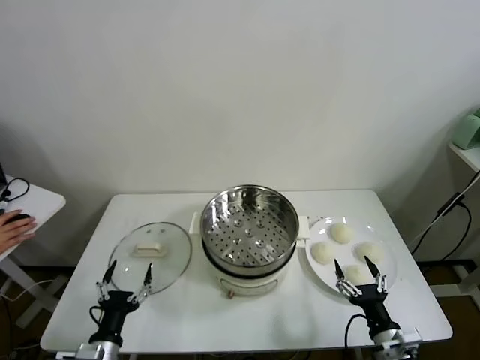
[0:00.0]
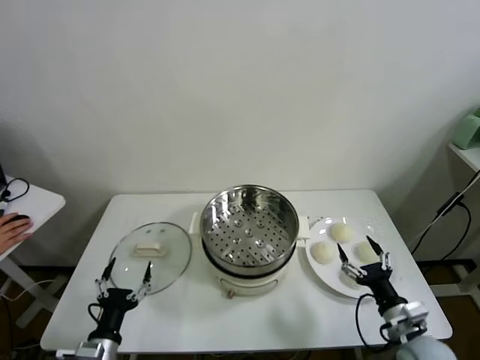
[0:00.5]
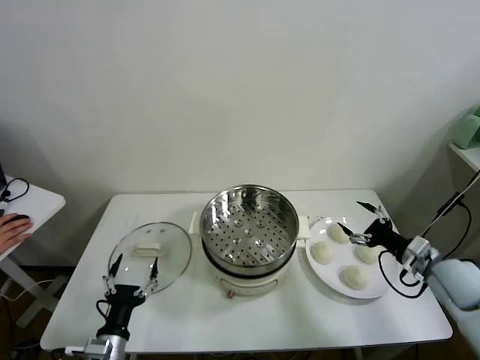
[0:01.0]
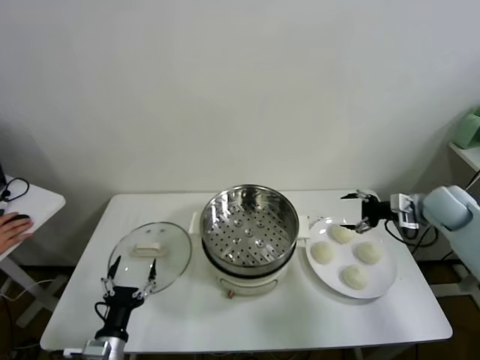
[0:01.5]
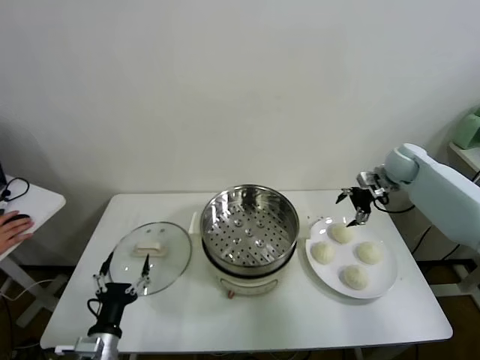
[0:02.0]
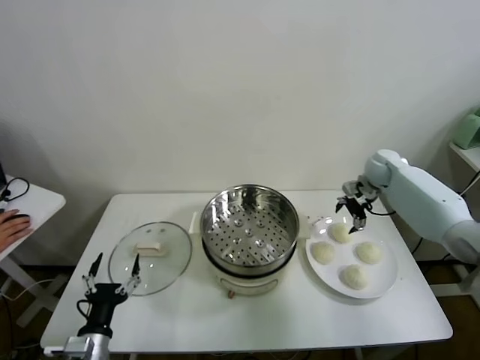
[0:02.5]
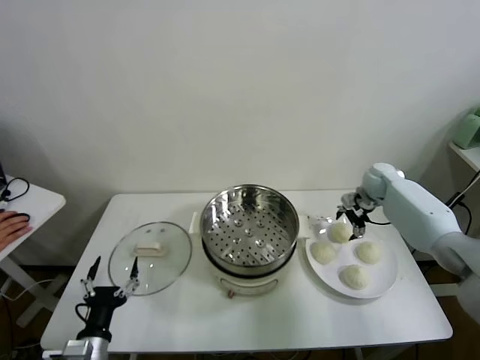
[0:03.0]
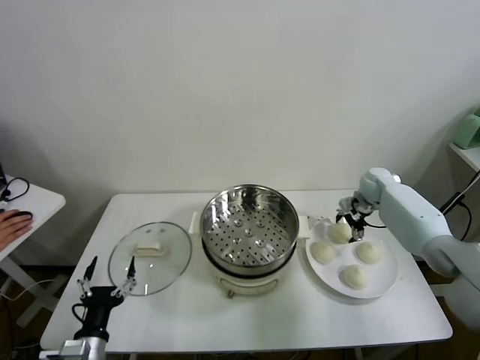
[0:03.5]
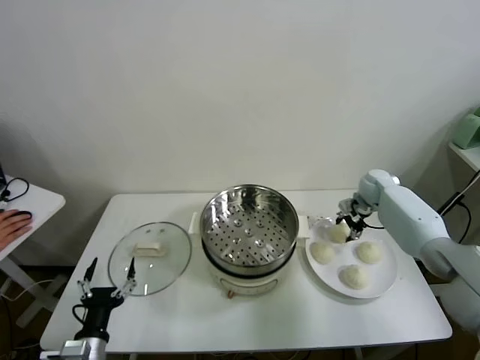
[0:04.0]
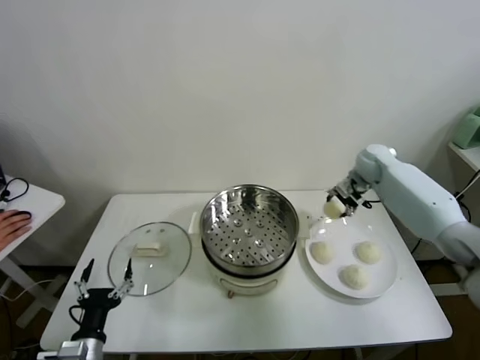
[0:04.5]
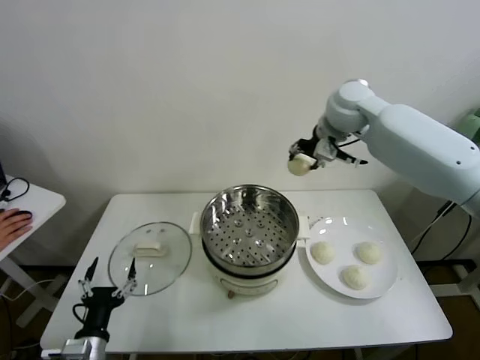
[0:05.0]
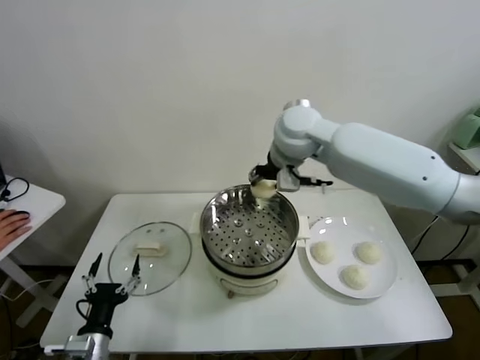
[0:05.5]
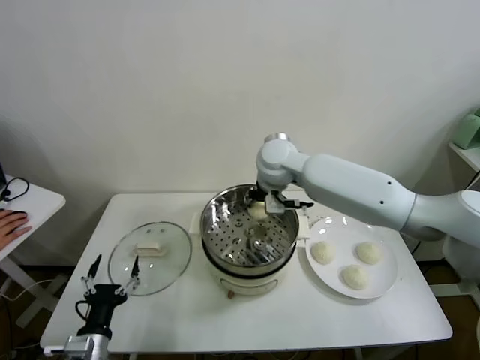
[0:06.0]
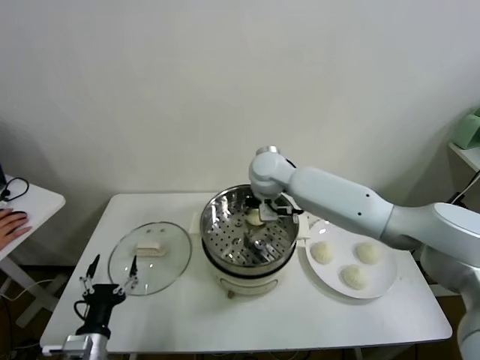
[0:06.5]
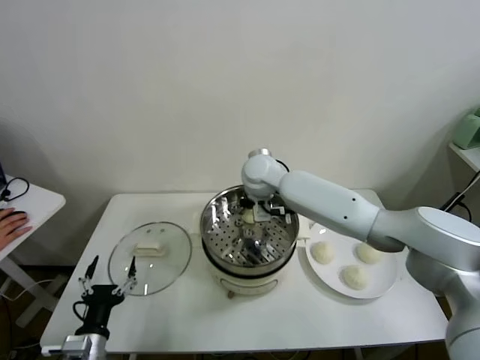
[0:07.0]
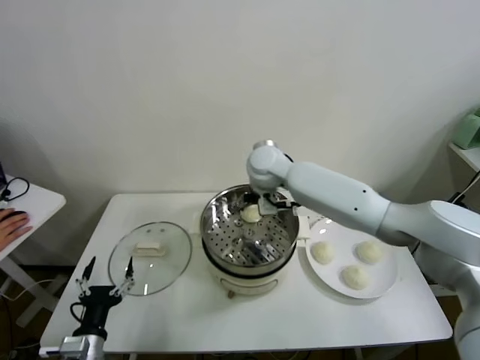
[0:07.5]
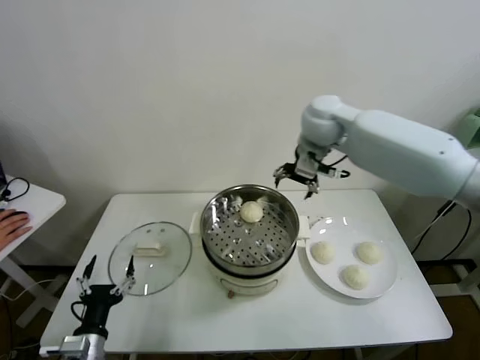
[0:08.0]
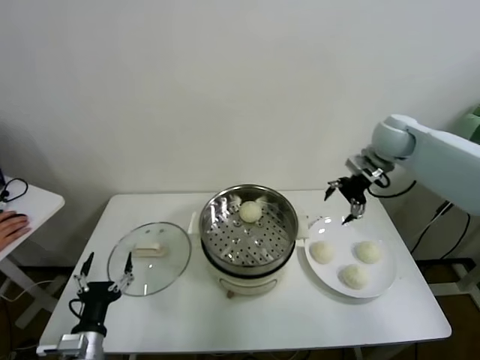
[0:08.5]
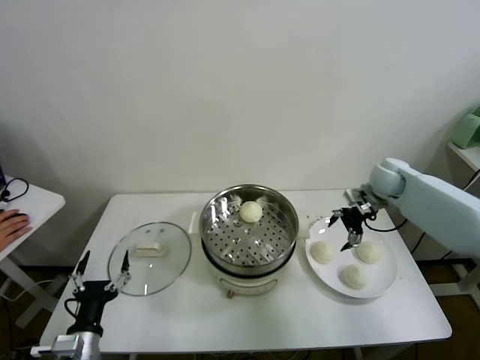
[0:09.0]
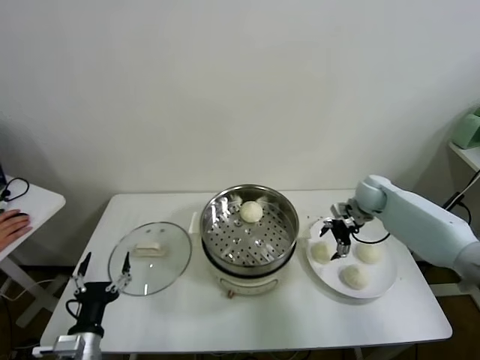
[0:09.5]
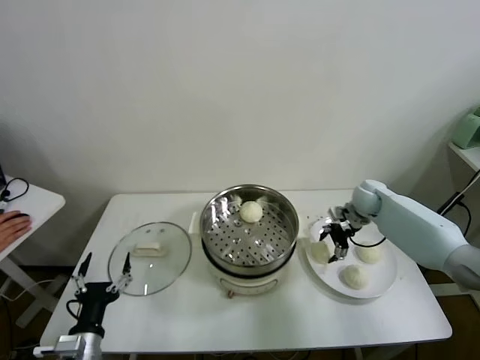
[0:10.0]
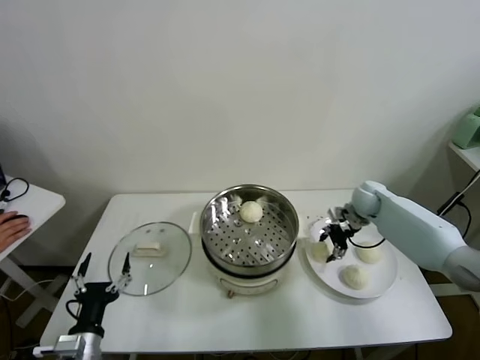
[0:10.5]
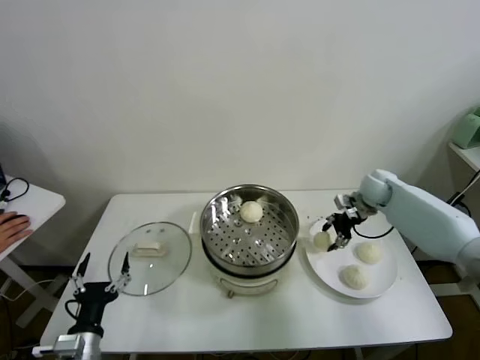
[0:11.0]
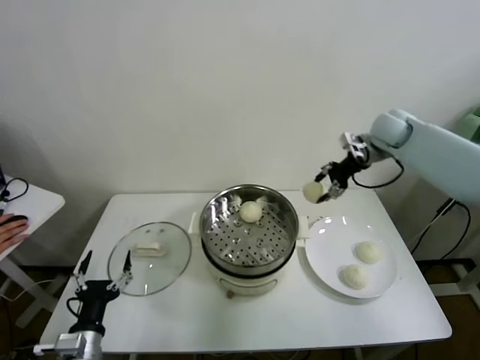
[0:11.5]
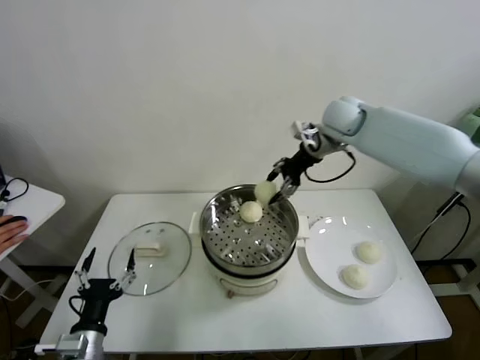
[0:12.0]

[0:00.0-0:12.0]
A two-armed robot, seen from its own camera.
Task of the whole recording: take steamed baozi put them in steamer.
Step, 0:00.0 to 0:03.5: Grasp the baozi in the plate with right gripper.
Step, 0:04.0 to 0:07.0: Place the baozi on the steamer with right gripper.
Step, 0:07.5 to 0:10.0: Grasp the baozi in the plate with right gripper.
0:02.0 to 0:04.0: The right gripper travels downward by approximately 10 cm, and closes.
0:04.0 to 0:06.0: The right gripper travels to the left and upward by approximately 35 cm.
0:06.0 to 0:08.0: The right gripper shifts roughly 15 cm to the right and upward, and opens.
0:08.0 to 0:10.0: The right gripper moves downward and to the right, some 30 cm, and closes.
0:10.0 to 0:12.0: The right gripper shifts approximately 25 cm upward and to the left, and closes up.

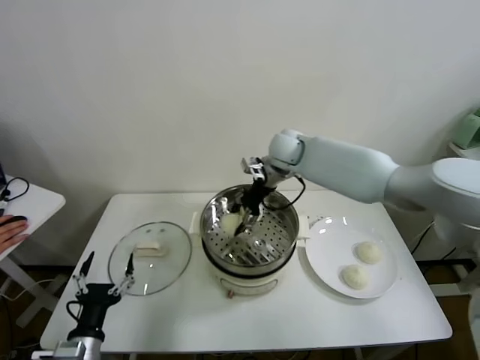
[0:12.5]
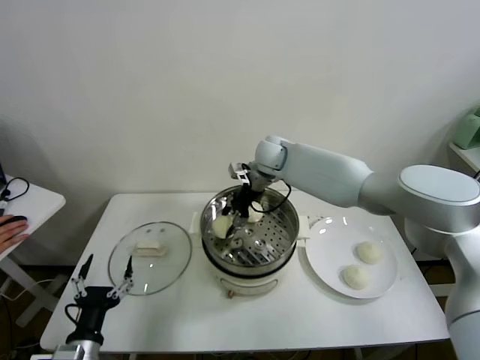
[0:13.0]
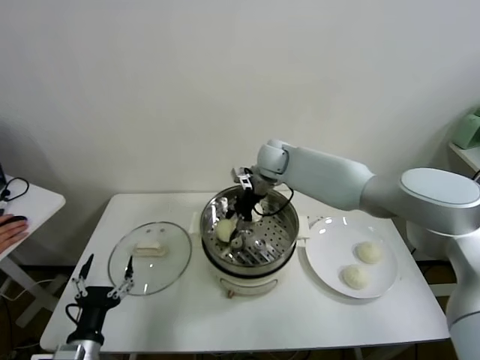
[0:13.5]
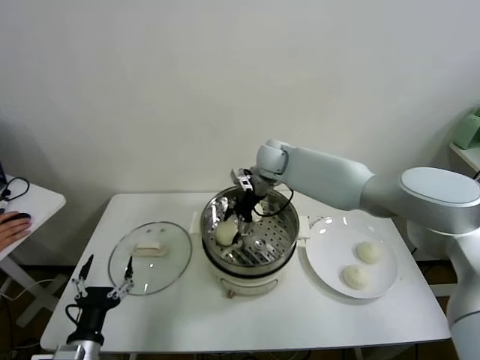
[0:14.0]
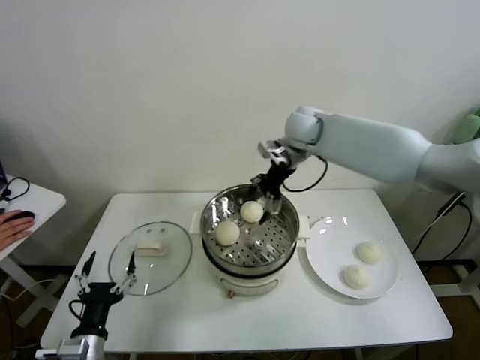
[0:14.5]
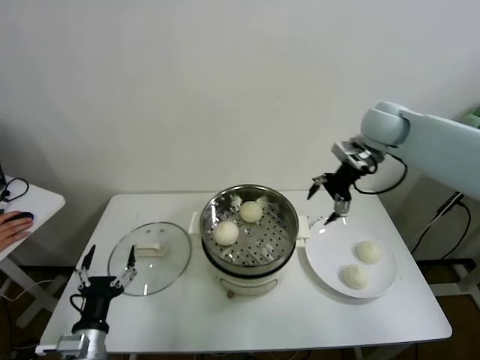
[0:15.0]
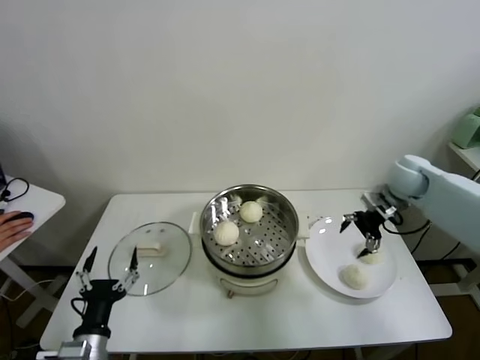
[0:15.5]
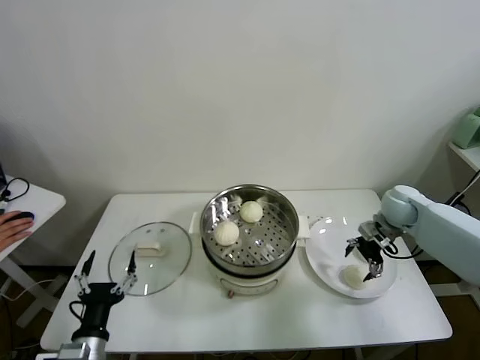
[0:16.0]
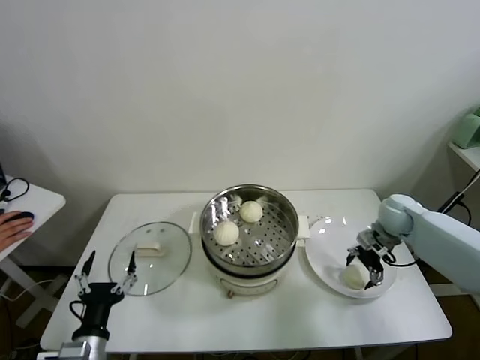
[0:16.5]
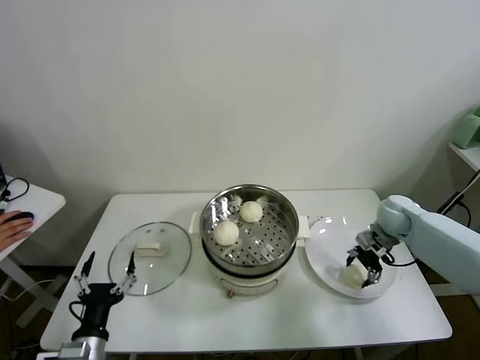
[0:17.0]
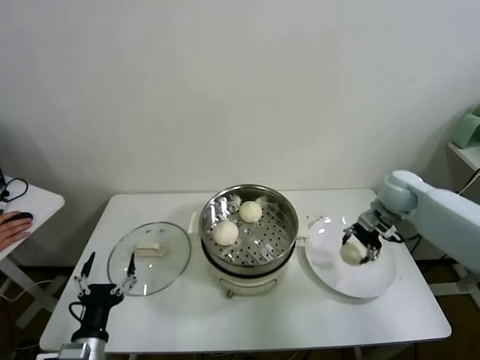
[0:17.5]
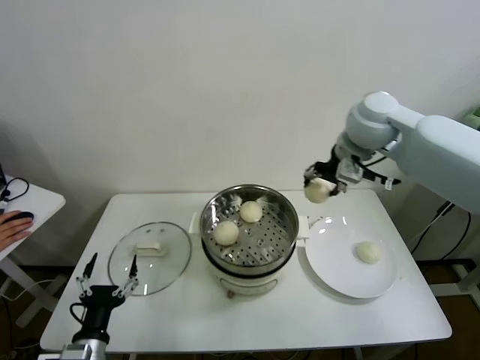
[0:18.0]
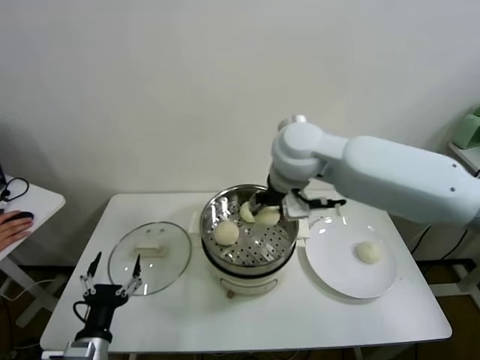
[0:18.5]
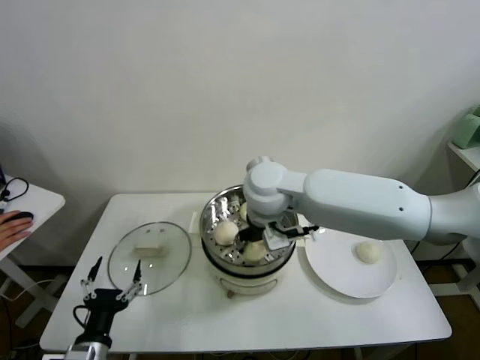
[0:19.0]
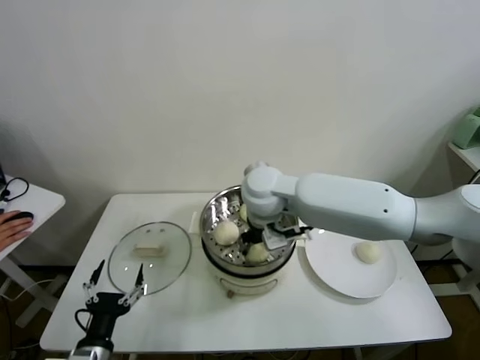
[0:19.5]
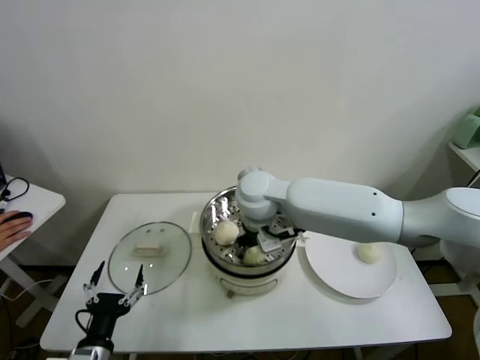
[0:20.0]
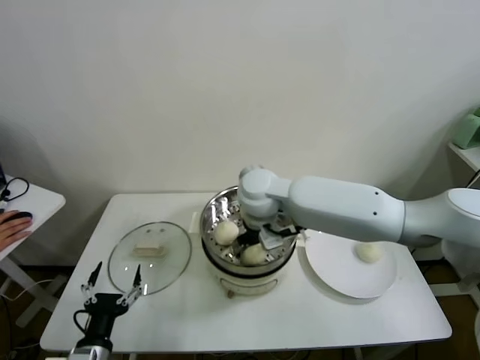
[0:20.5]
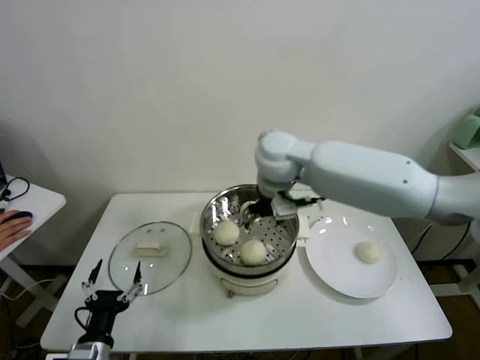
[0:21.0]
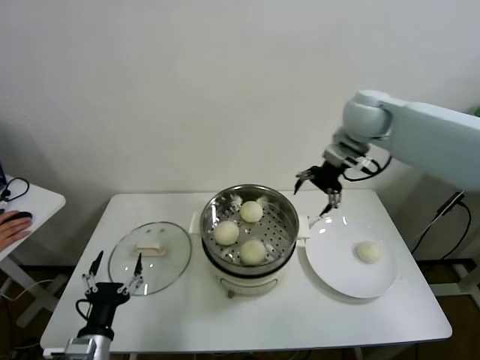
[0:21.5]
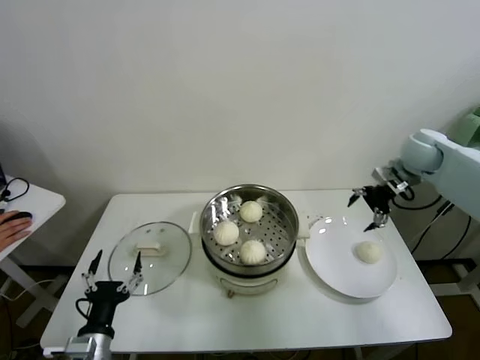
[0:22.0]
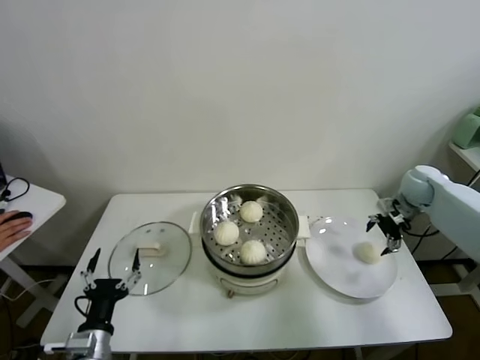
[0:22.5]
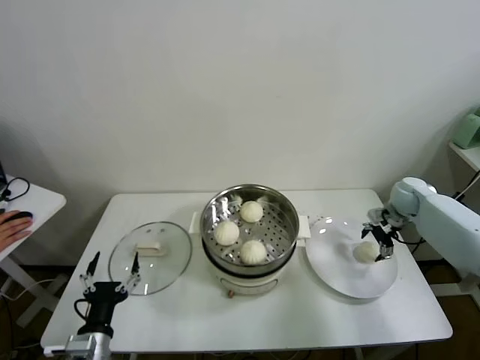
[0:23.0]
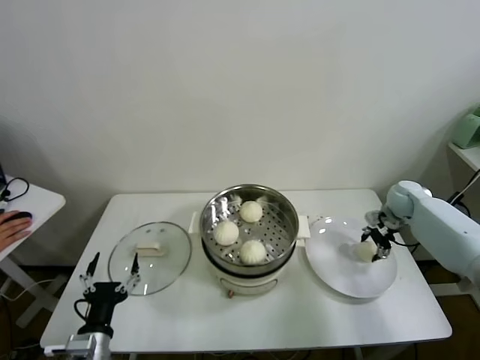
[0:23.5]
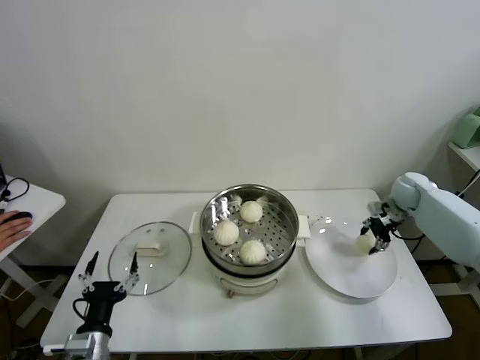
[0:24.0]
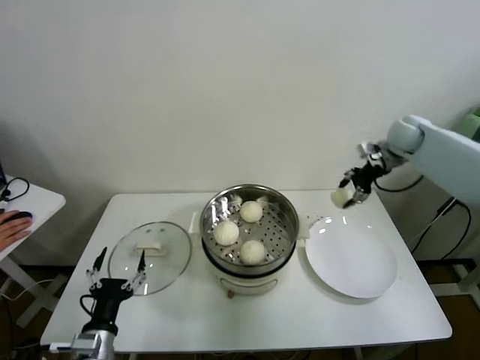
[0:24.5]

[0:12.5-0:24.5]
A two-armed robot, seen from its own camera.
Task of the whole recording: take steamed baozi put them in steamer.
Step, 0:14.0 to 0:16.5: Grasp the baozi in the plate with right gripper.
Step, 0:17.0 to 0:20.0: Place the baozi on the steamer with right gripper.
Step, 0:20.5 to 0:23.0: Grasp the baozi in the plate with right gripper.
0:12.5 to 0:14.5: The right gripper goes some 10 cm upward and to the right, and opens up.
0:14.5 to 0:16.5: The right gripper is displaced to the right and downward by some 30 cm.
0:16.5 to 0:18.5: The right gripper travels to the left and upward by approximately 40 cm, and closes its fingers.
0:18.5 to 0:20.5: The right gripper moves downward and to the left, roughly 10 cm, and opens.
0:20.5 to 0:22.5: The right gripper travels to the right by roughly 40 cm.
0:22.5 to 0:24.5: The right gripper moves upward and forward, about 10 cm, and closes its fingers.

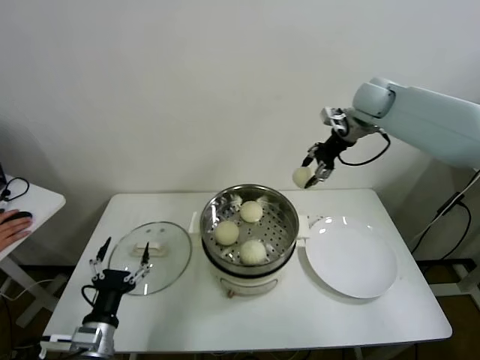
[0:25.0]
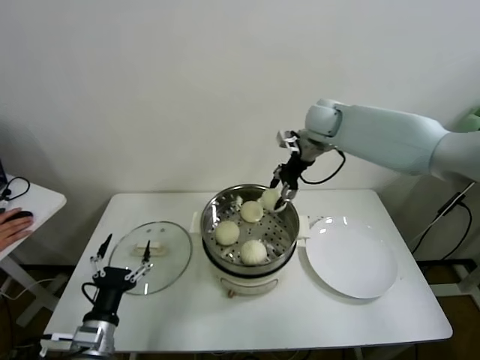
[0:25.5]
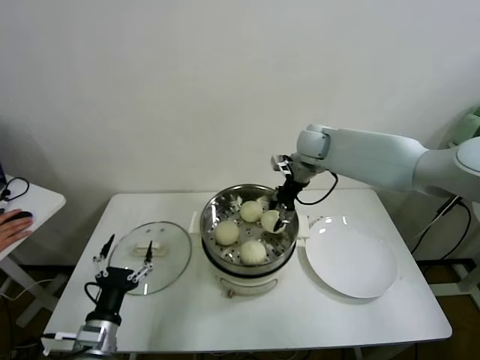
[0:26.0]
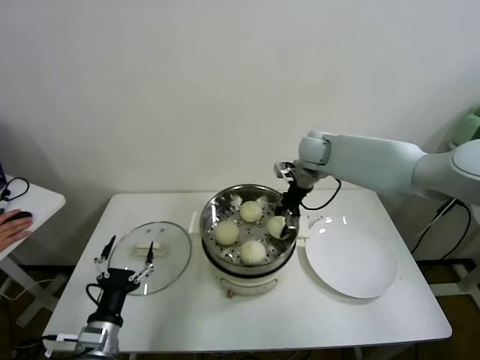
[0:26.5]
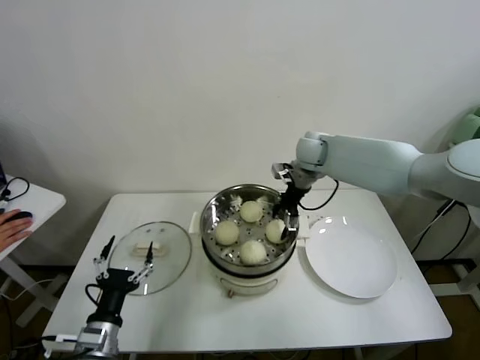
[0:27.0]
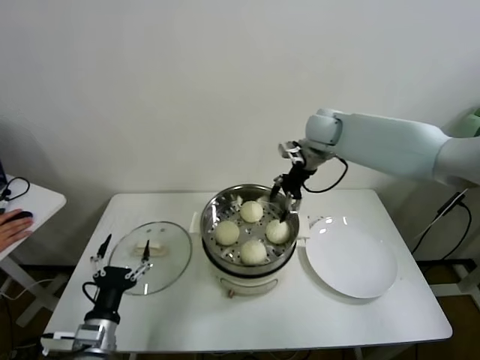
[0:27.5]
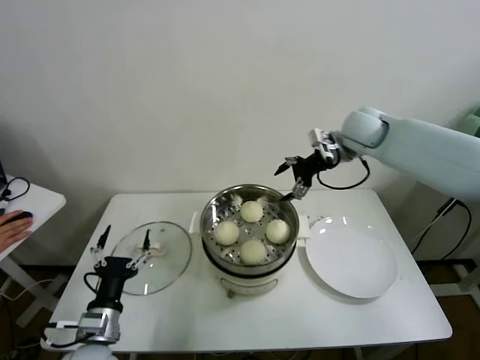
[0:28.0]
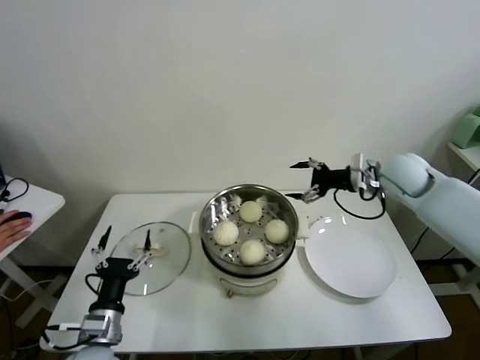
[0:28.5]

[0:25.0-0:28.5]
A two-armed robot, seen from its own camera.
Task of the whole recording: take steamed baozi put them in steamer.
Step, 0:25.0 to 0:27.0: Place the baozi on the steamer with right gripper.
0:25.0 to 0:27.0: The right gripper goes some 20 cm downward and to the left, and opens.
0:27.0 to 0:28.5: The right gripper goes roughly 20 cm to the right and backward.
